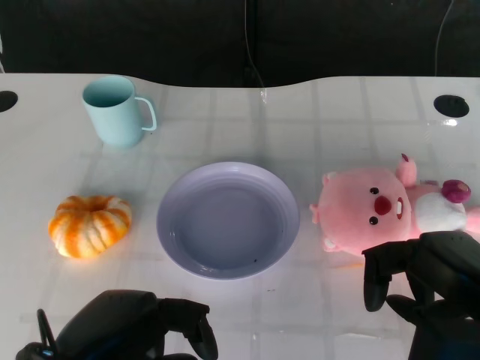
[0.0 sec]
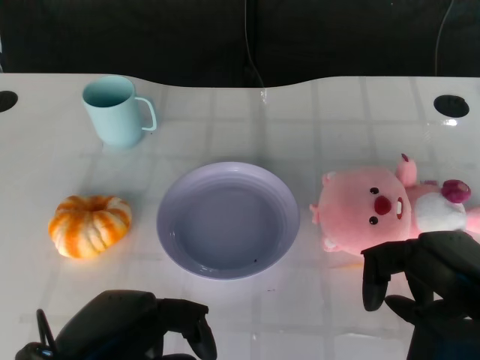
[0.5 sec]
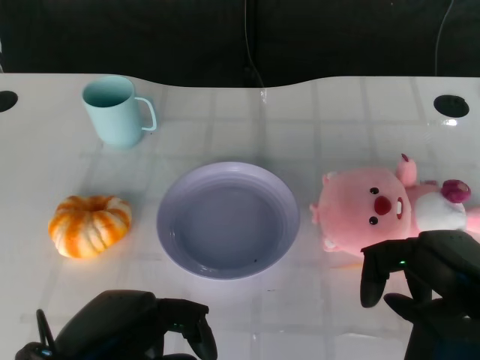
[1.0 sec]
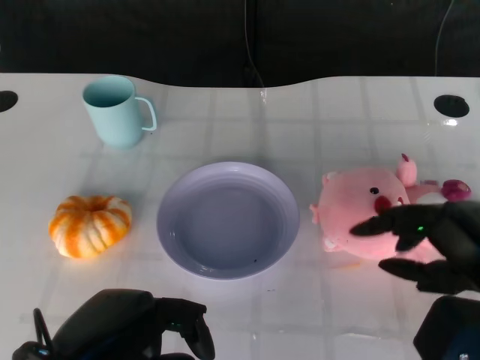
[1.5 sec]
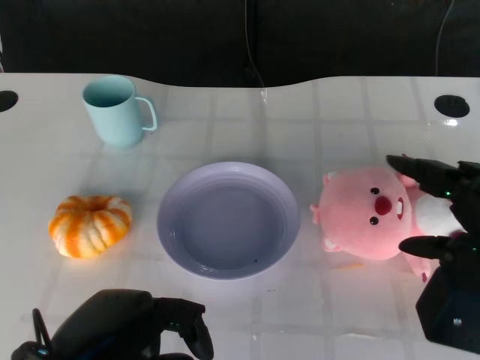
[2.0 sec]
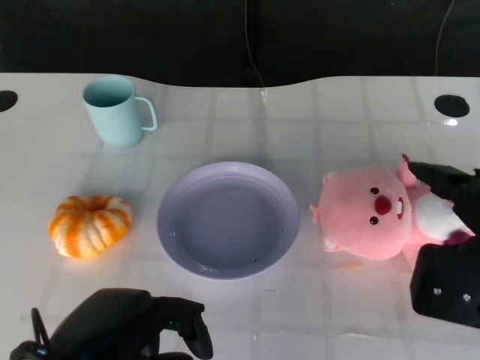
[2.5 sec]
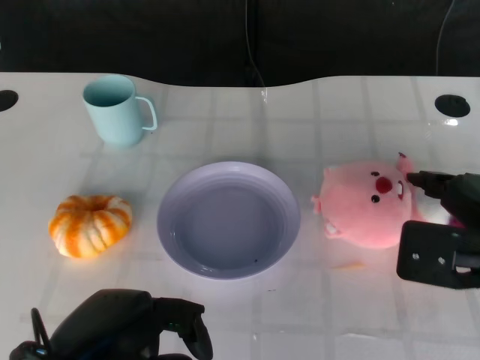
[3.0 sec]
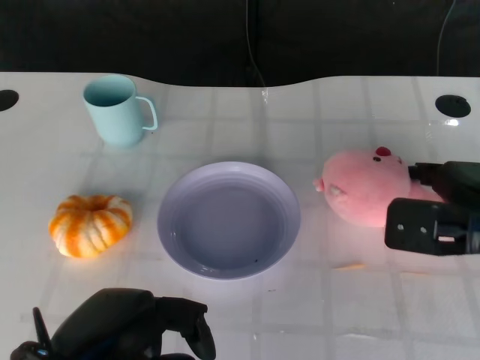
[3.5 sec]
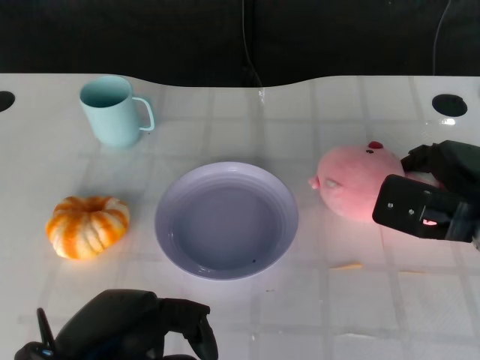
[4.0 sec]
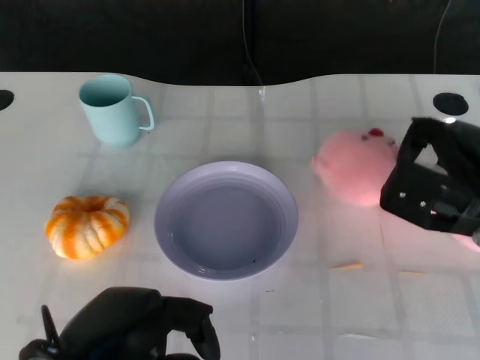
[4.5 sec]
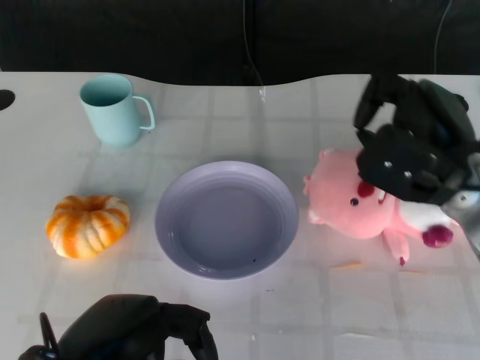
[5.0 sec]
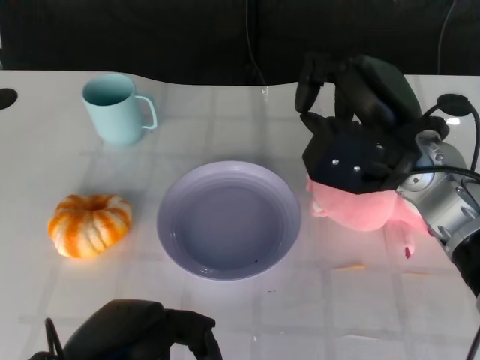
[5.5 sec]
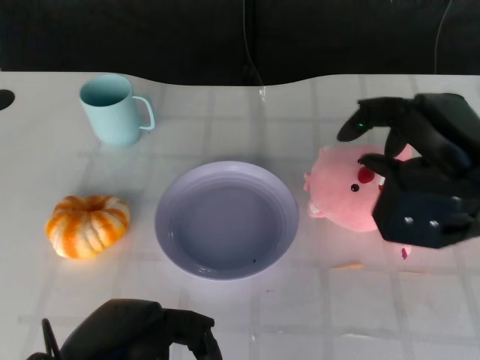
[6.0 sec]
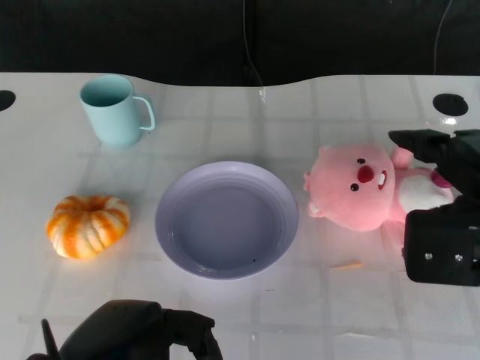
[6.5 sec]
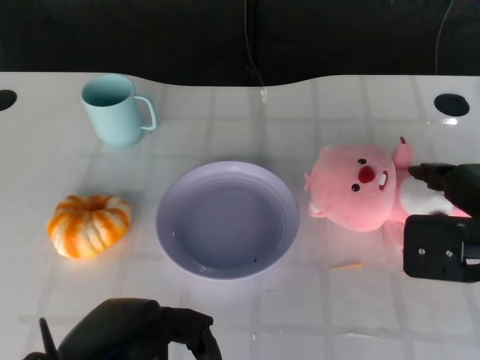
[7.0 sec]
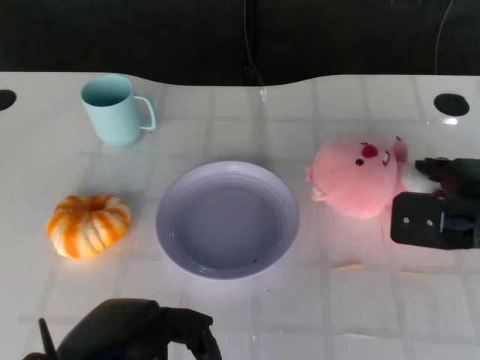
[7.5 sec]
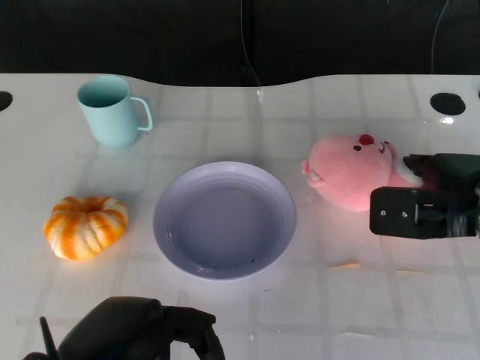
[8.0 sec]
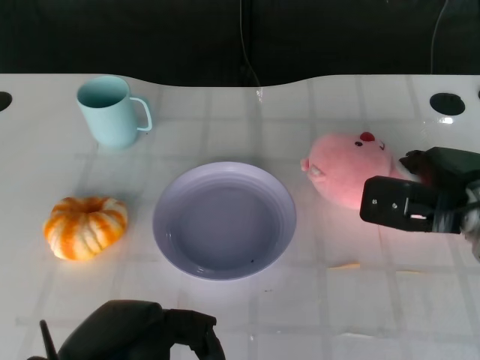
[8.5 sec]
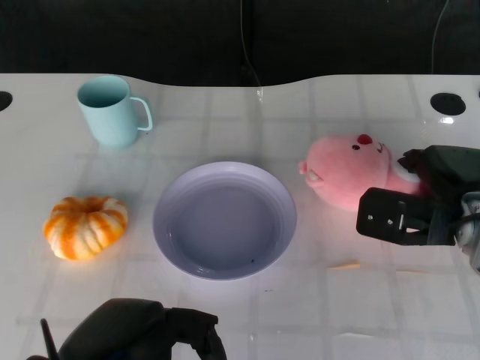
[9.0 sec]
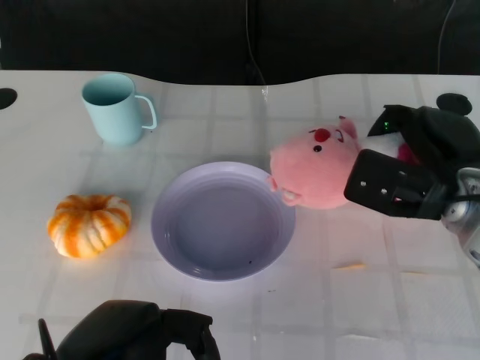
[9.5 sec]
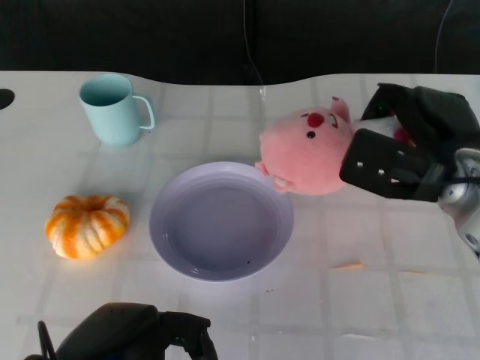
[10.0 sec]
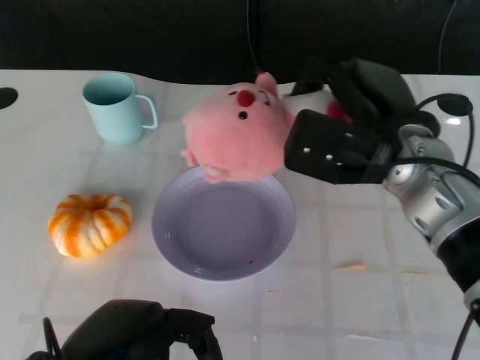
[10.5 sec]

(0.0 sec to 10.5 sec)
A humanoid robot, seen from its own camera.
Task of the whole recording: Pick up the doll on the other side of the plate and place it into the plate.
Step, 1.0 sec - 10.0 sec: Grasp the pink doll with the right gripper.
2.0 sec - 4.0 sec: The right hand heads forward and downward, covering about 15 cm.
4.0 sec - 6.5 sec: The right hand shifts roughly 10 cm upward and backward, and moves approximately 10 cm to the left and comes back.
6.5 sec - 8.5 sec: The right hand heads downward and forward, covering about 10 cm.
8.5 sec - 10.5 sec: The right hand shifts approximately 10 cm to the left and upward.

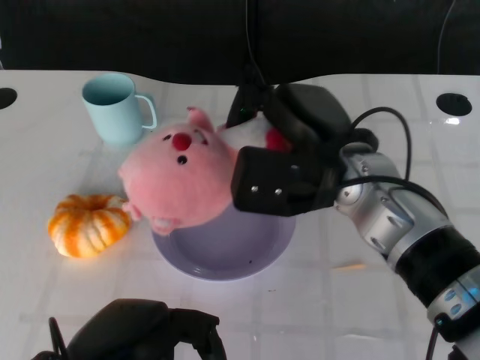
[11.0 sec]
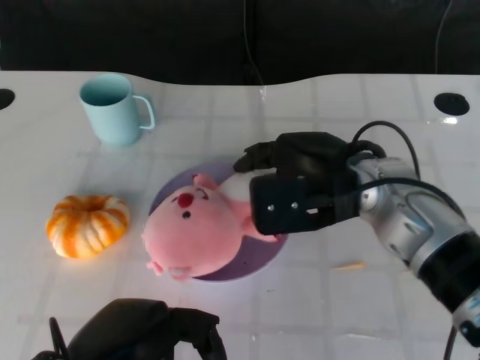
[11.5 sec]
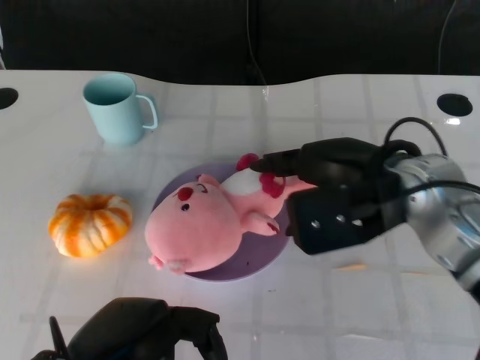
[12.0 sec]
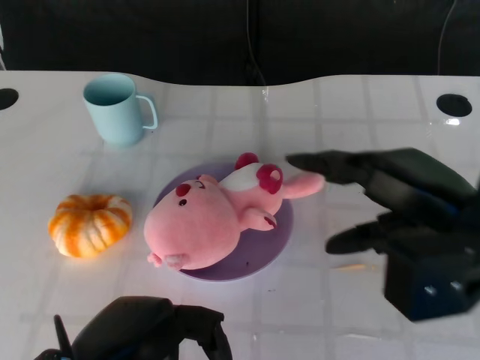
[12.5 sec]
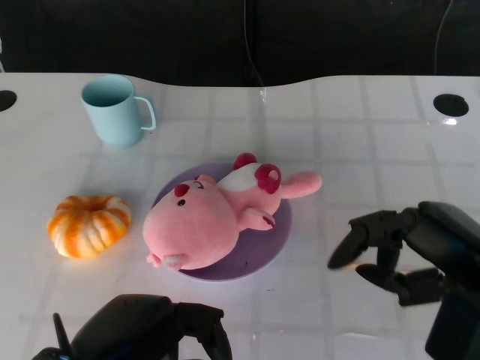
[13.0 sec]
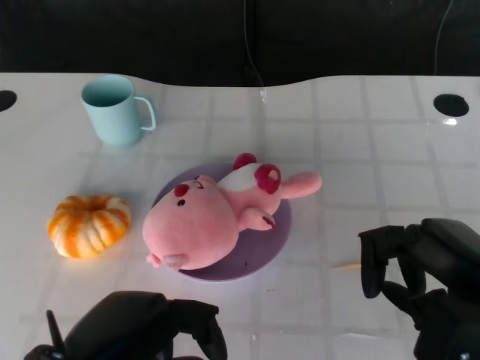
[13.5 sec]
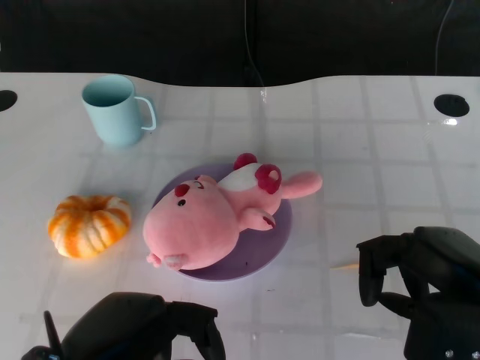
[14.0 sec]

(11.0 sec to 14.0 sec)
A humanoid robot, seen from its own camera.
Task of the whole recording: Pick up the doll on the other side of the plate and place it into the plate.
Step, 11.0 sec - 12.5 sec: Place the pink doll into the plate with the right gripper.
11.0 sec - 12.5 sec: The right hand shifts some 15 cm to the right and backward.
12.5 sec - 14.0 sec: The right hand heads backward and downward, covering about 5 cm.

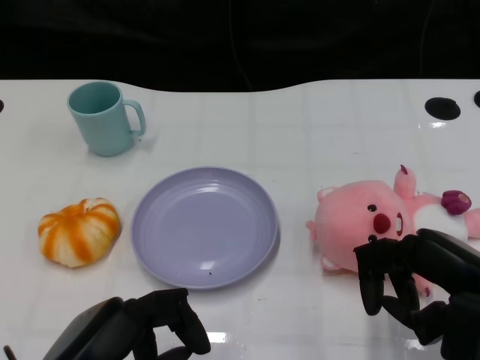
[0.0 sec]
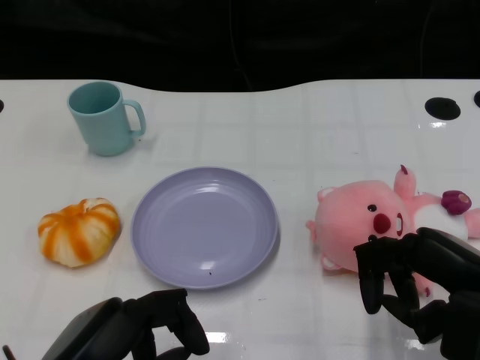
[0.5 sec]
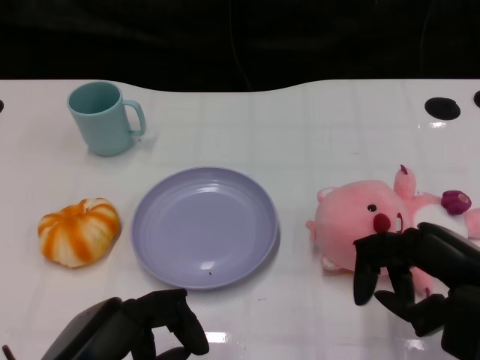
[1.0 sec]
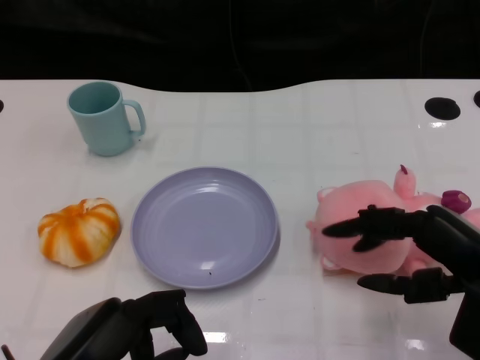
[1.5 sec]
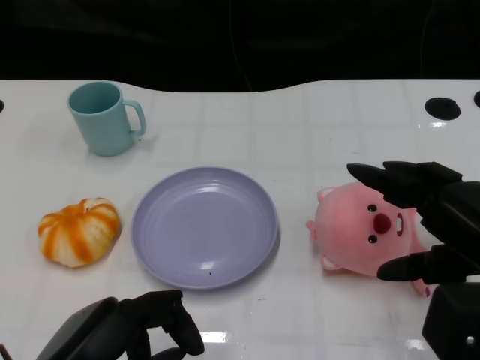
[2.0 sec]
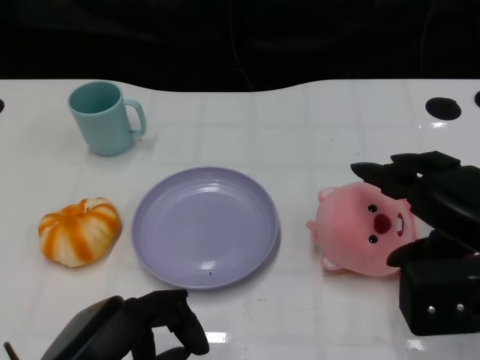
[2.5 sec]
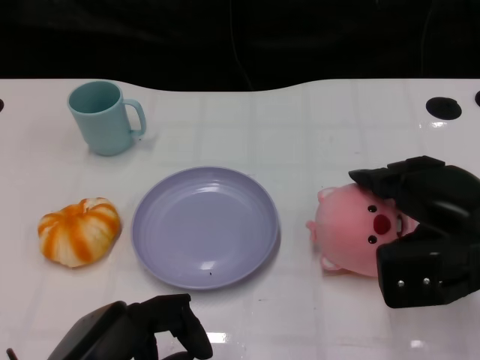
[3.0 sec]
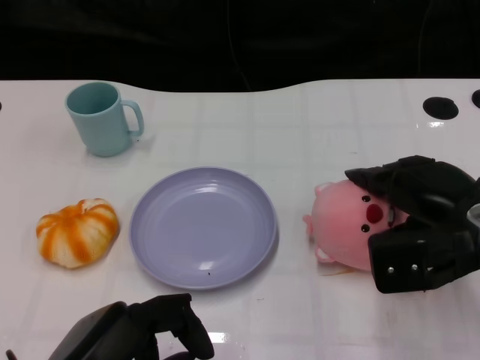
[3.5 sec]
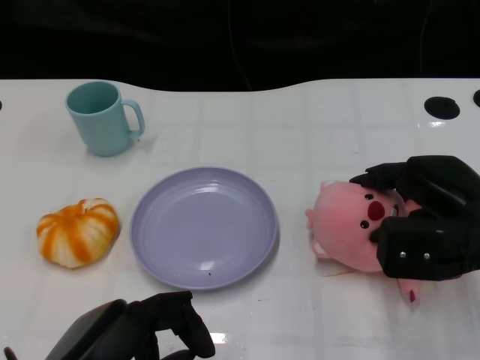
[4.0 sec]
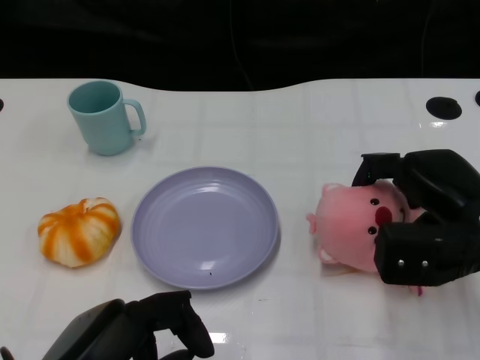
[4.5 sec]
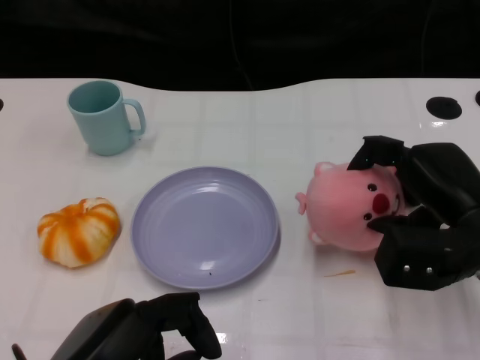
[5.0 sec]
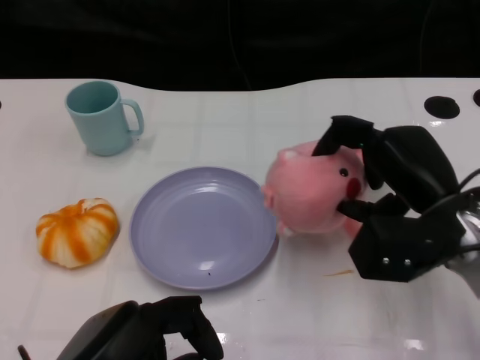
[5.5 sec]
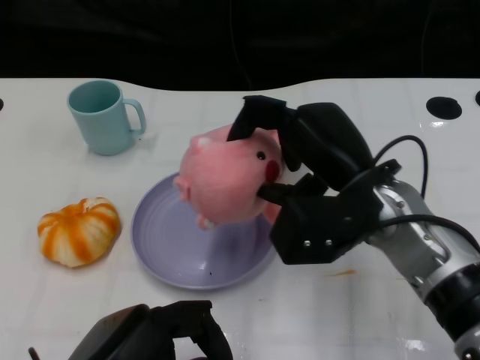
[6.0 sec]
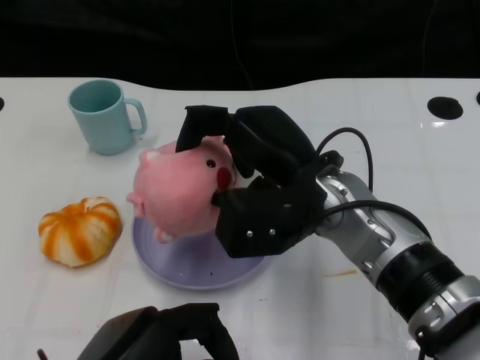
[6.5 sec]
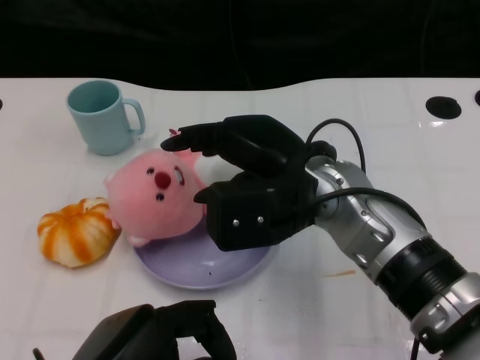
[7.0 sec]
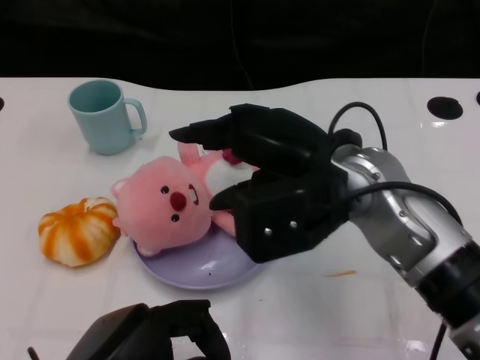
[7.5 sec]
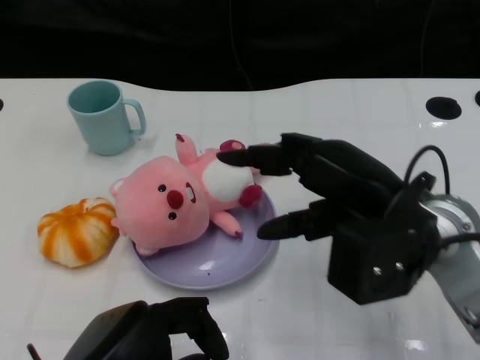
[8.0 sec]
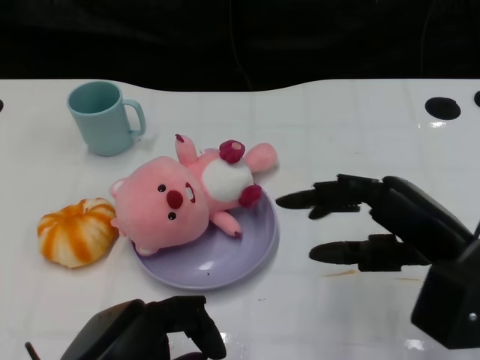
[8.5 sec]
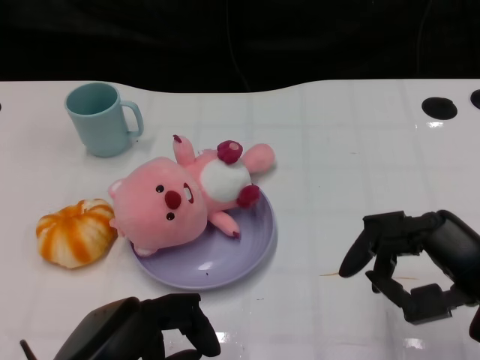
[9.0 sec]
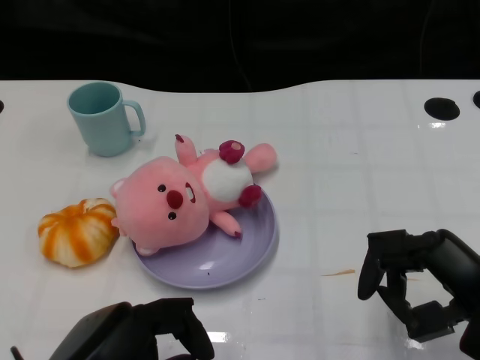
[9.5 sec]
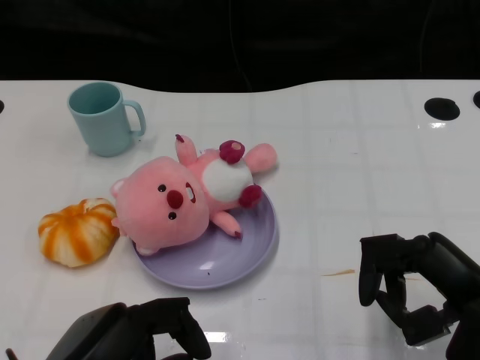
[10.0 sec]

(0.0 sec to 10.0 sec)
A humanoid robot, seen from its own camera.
Task of the whole recording: Pick up the doll on the other side of the plate and place it into the plate.
Step, 1.0 sec - 5.5 sec: Grasp the pink doll with the right gripper.
Step, 6.0 sec - 7.5 sec: Place the pink doll into the plate with the right gripper.
2.0 sec - 4.0 sec: The right hand is displaced forward by approximately 10 cm.
4.0 sec - 6.0 sec: The right hand heads to the left, covering approximately 10 cm.
6.0 sec - 8.0 sec: The right hand shifts by about 5 cm.
8.0 sec - 10.0 sec: The right hand heads to the right, downward and backward, covering roughly 15 cm.

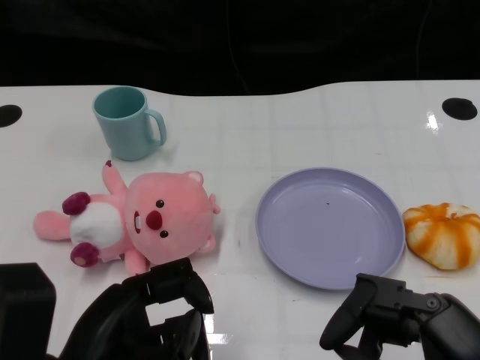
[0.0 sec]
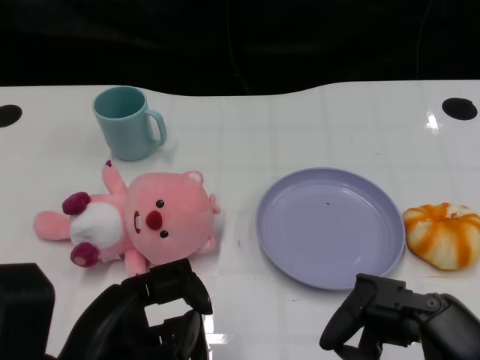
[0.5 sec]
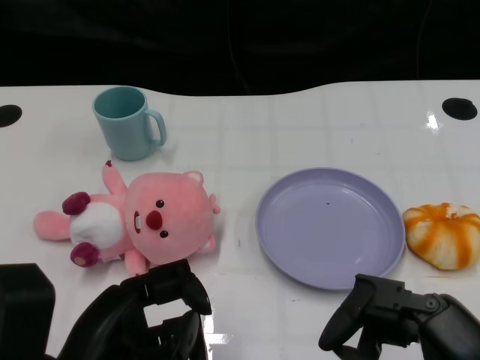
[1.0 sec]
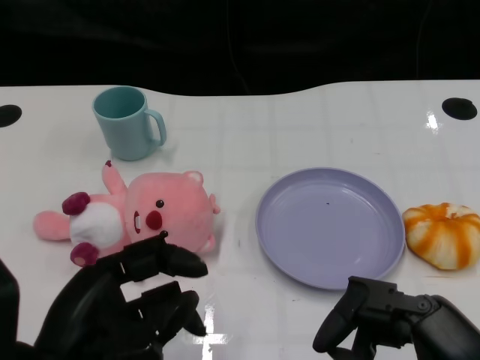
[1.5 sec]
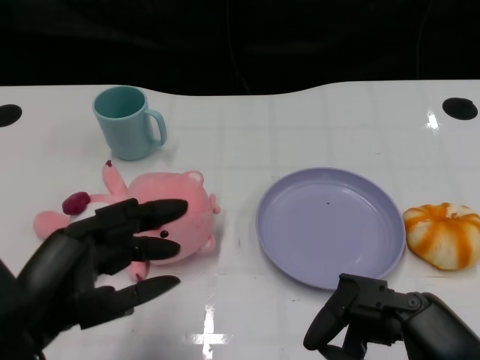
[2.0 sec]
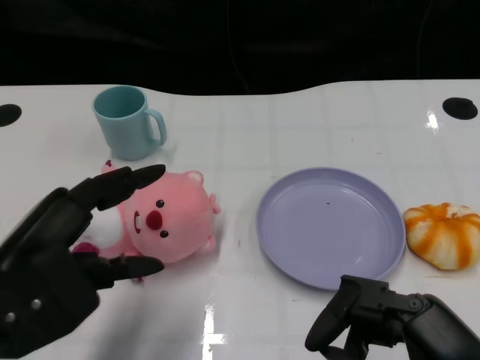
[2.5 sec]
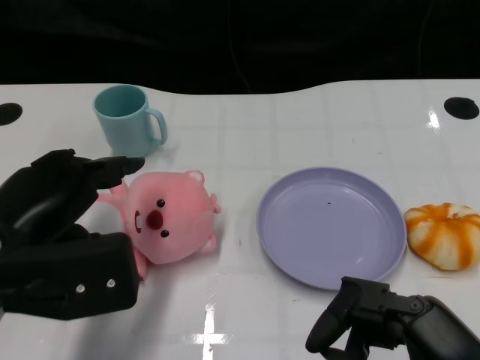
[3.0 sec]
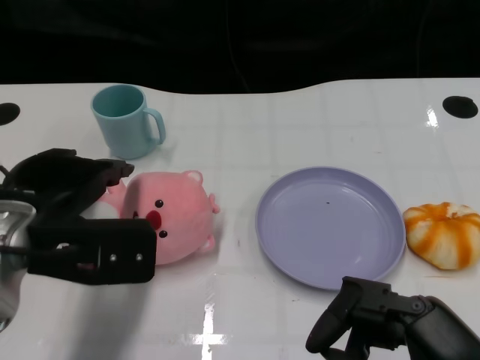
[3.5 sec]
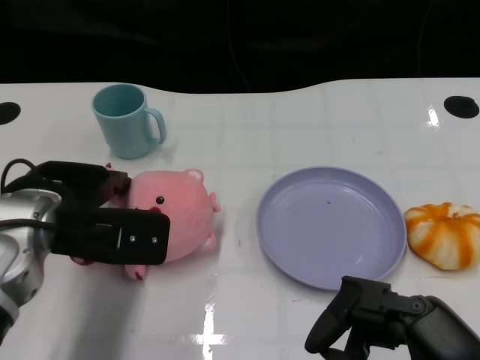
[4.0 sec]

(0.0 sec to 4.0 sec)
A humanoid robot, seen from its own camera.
Task of the whole recording: Pick up the doll on one side of the plate and place it into the plate.
2.0 sec - 4.0 sec: The left hand goes roughly 15 cm forward.
